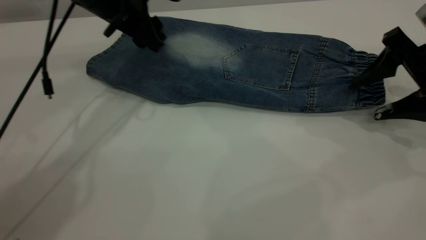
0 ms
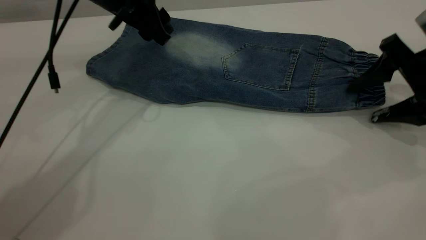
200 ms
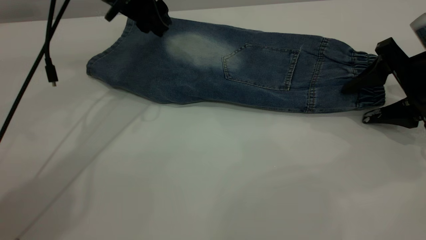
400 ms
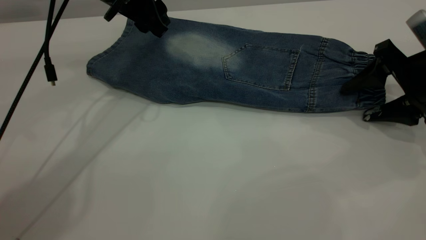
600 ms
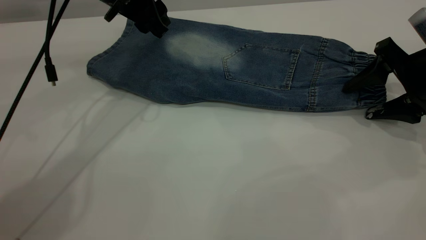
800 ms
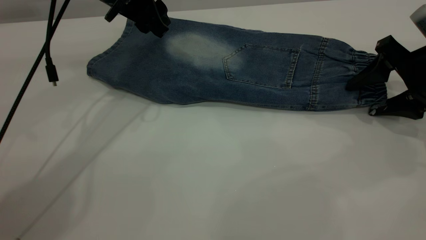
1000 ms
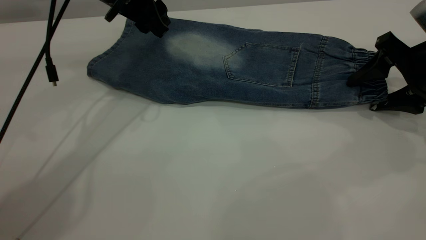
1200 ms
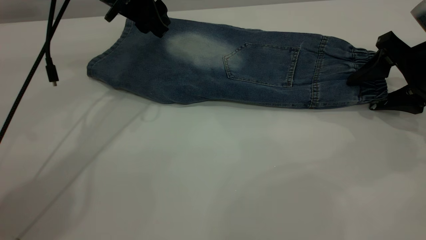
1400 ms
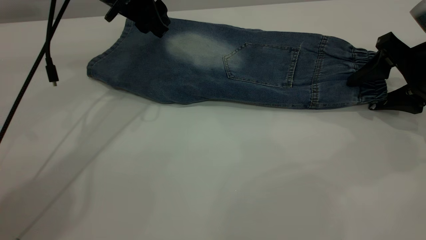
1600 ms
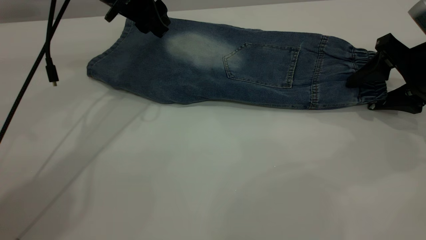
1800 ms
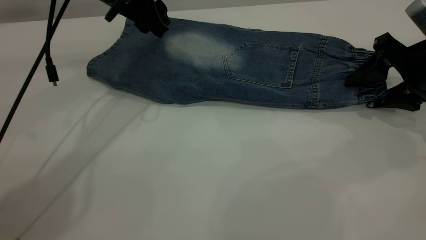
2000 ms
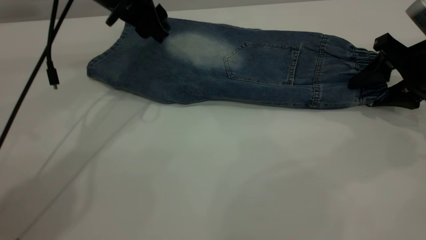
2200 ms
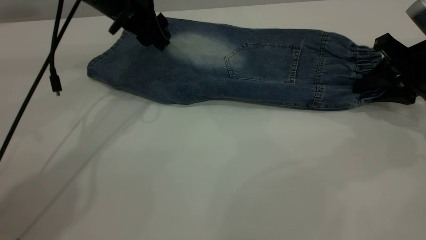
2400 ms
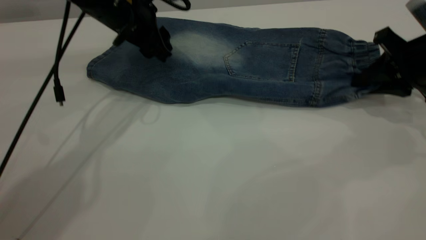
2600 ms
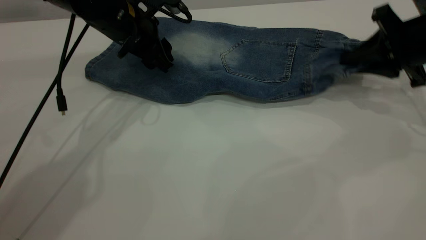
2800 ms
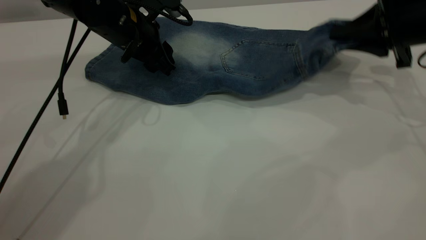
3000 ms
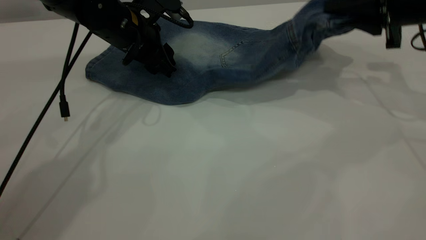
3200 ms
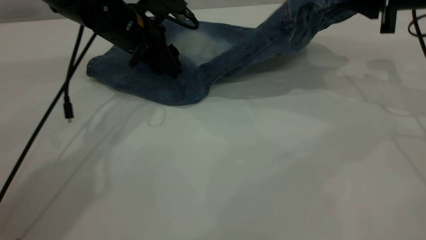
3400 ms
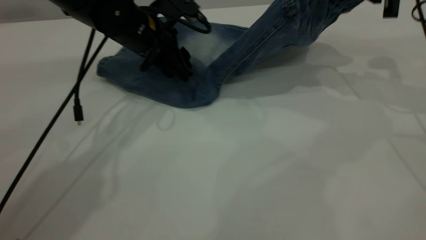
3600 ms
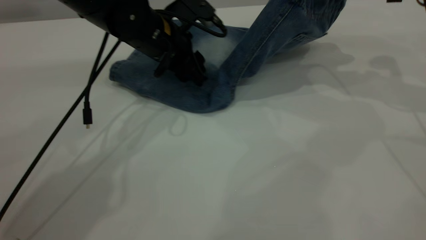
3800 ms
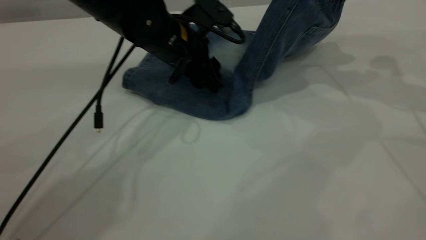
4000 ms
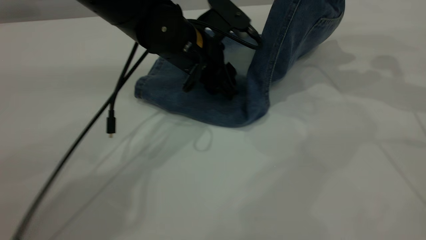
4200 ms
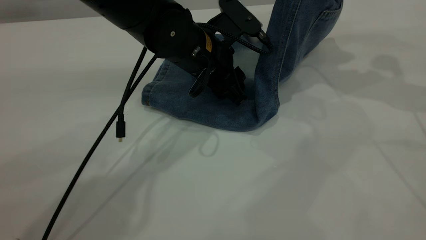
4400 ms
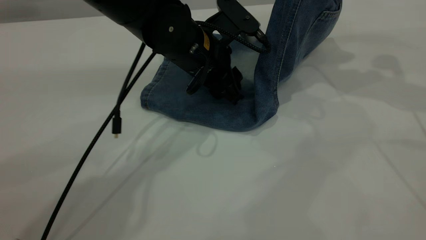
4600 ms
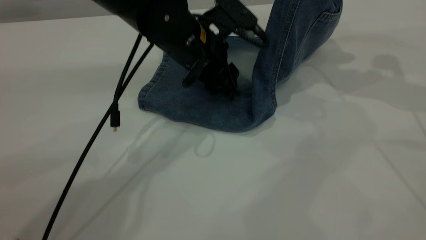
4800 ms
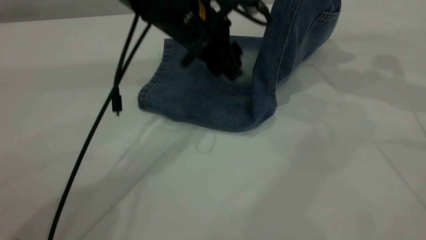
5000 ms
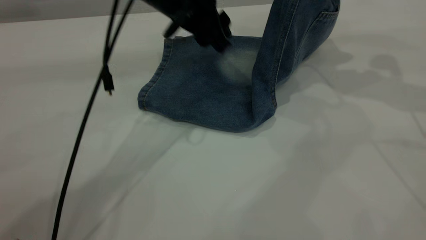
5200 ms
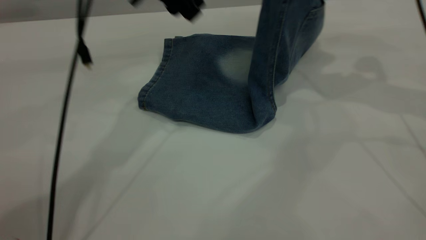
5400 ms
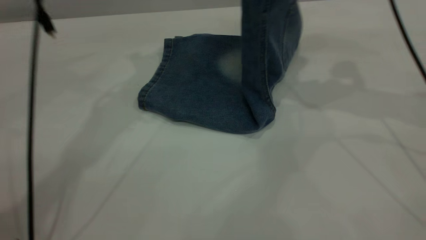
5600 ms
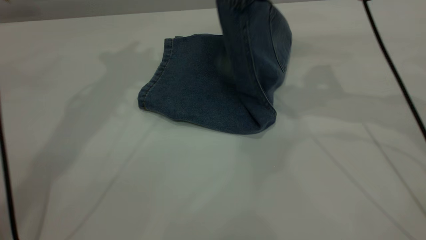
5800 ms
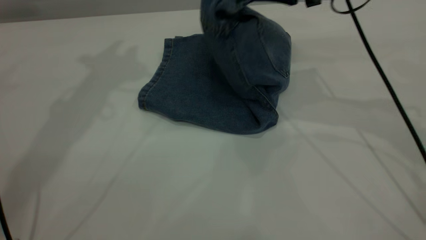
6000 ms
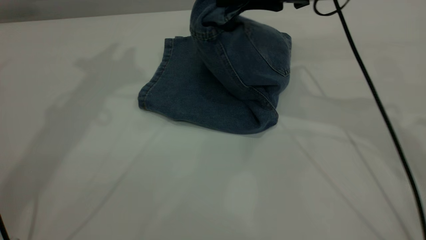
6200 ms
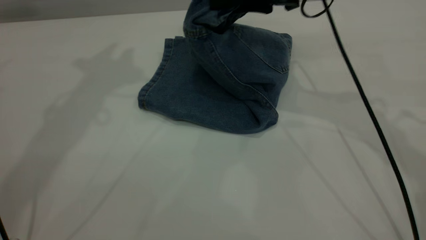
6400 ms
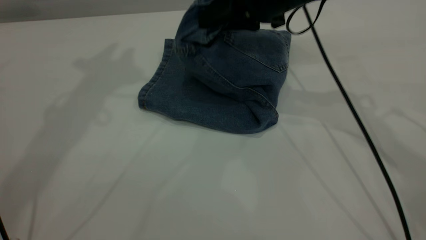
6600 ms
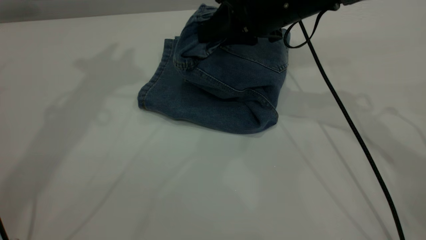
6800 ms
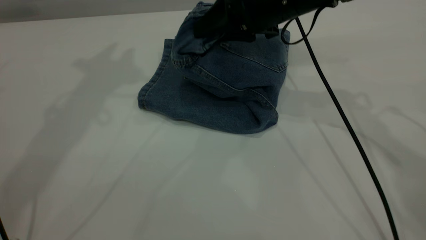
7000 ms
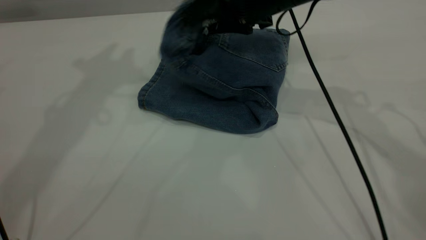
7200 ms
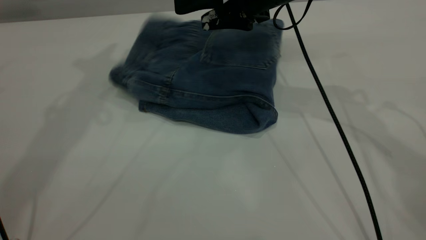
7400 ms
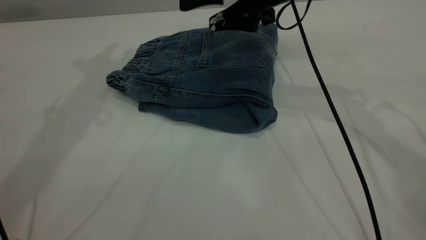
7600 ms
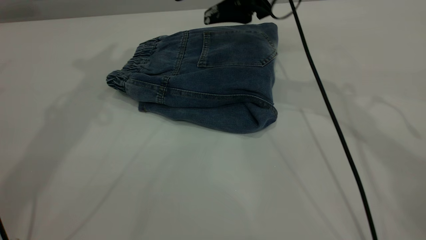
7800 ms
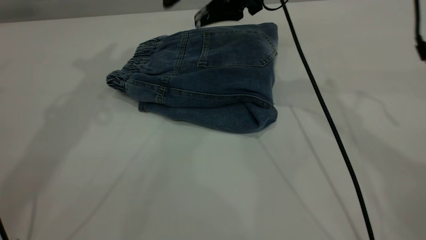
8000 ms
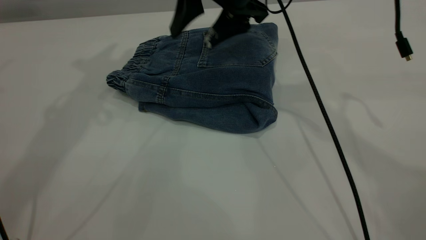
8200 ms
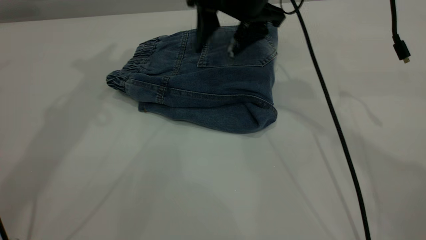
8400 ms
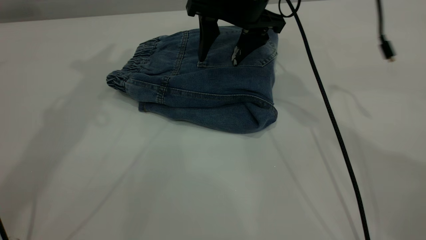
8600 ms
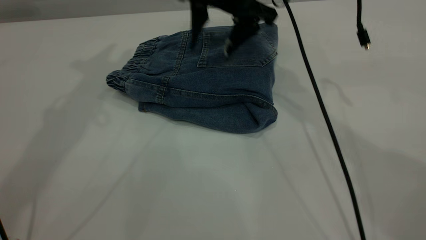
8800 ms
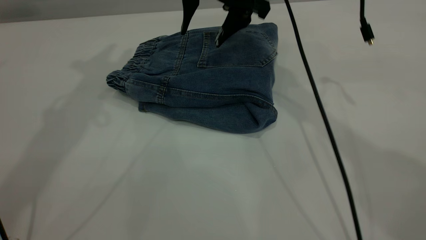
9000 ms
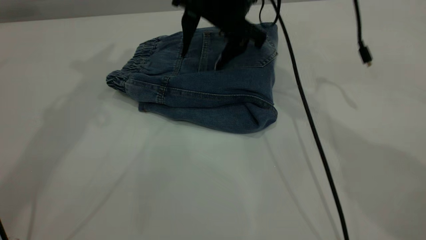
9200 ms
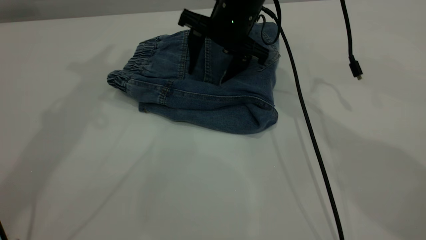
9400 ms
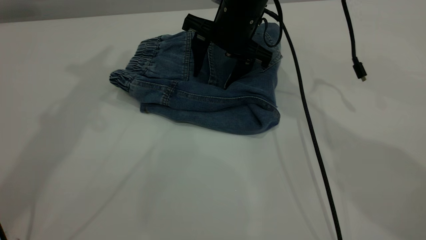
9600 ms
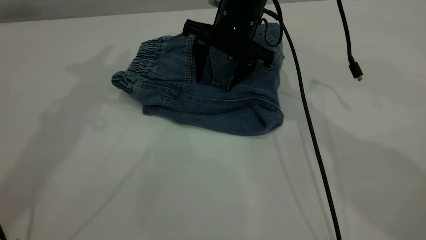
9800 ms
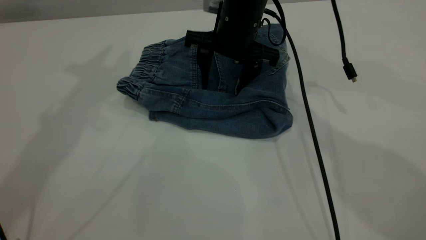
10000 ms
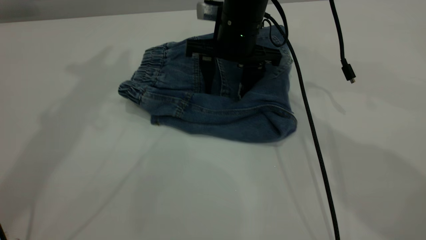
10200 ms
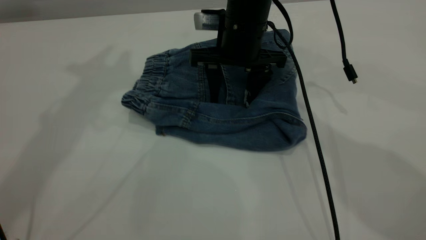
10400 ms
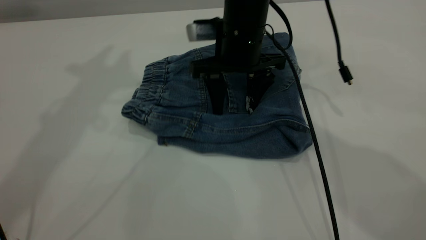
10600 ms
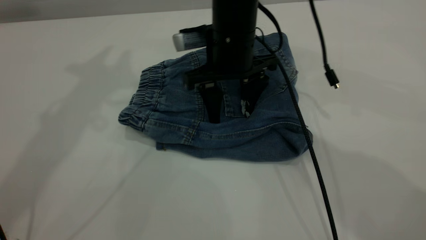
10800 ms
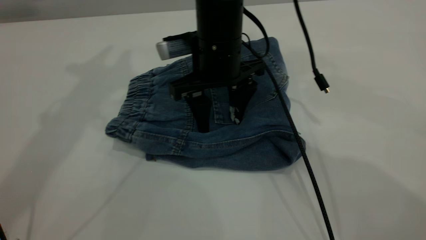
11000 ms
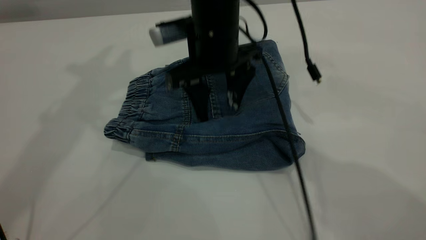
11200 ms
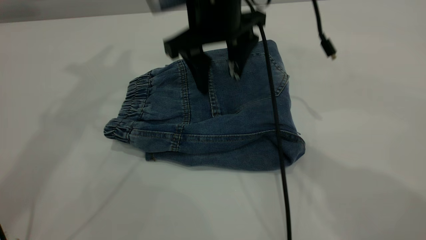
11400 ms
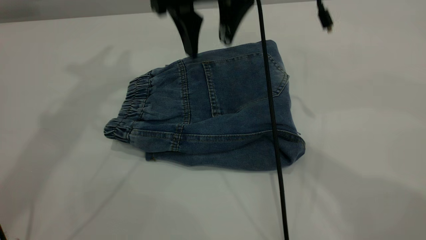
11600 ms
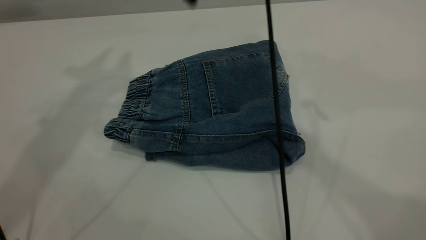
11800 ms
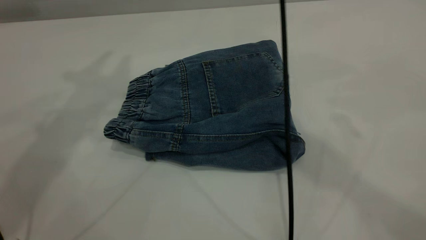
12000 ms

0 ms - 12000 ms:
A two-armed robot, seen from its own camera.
Step, 0 ms - 7800 ms: Fold your pants from right to left.
0 ms - 1600 ms: The grippers make only small movements.
1600 ms - 3000 ms: The right gripper moves some 5 cm, and closes, while the left gripper moves downward, about 5 cm.
3000 ms - 4400 ms: The right gripper goes some 10 cm upward. Meanwhile the left gripper heads to the right and backward, covering approximately 10 cm.
4400 ms - 6000 ms: The right gripper heads to the left, covering roughly 15 cm. The left gripper is displaced upward and to the left by about 35 cm.
6000 ms - 7600 ms: The right gripper moves to the left, roughly 5 cm, and opens up.
7600 ms - 9000 ms: The right gripper is displaced to the left by roughly 5 cm.
9000 ms - 10400 ms: The right gripper shifts some 5 cm downward.
10400 ms - 12000 ms: The right gripper goes about 30 cm upward.

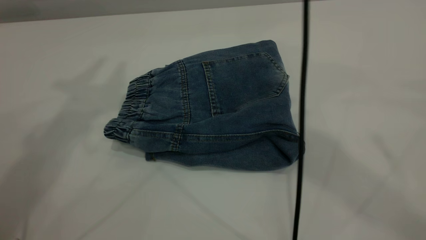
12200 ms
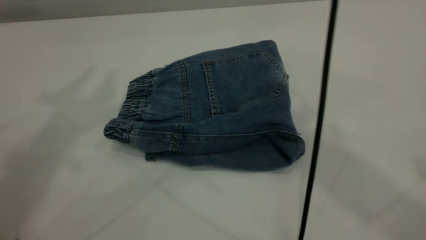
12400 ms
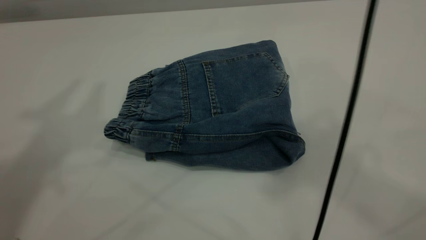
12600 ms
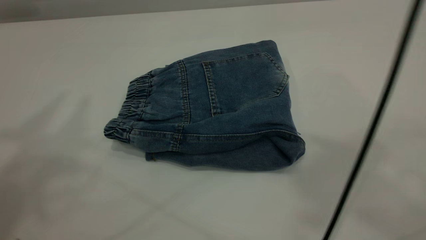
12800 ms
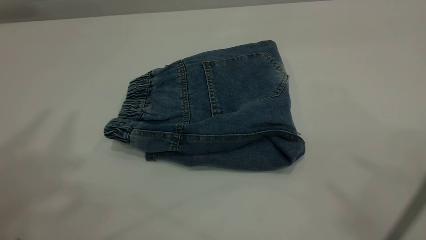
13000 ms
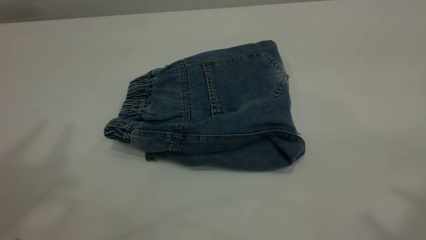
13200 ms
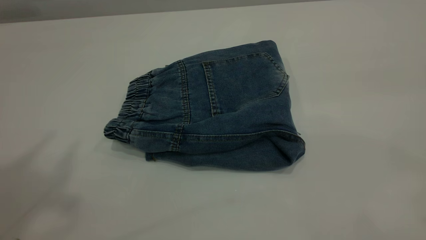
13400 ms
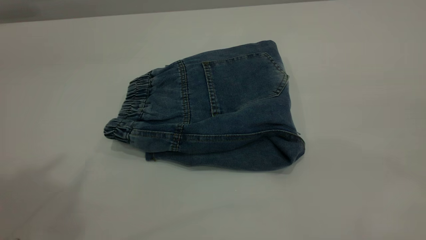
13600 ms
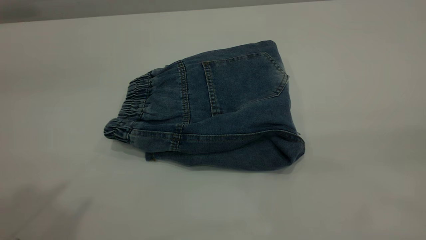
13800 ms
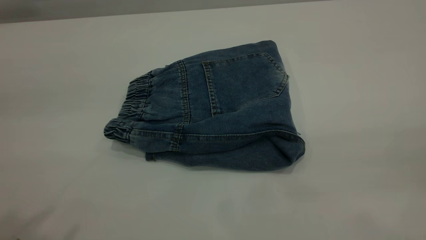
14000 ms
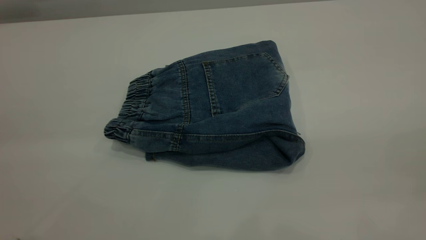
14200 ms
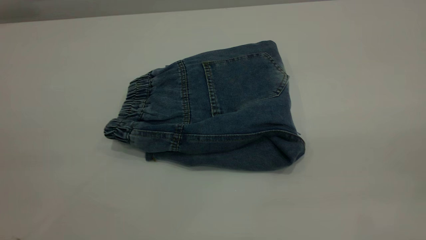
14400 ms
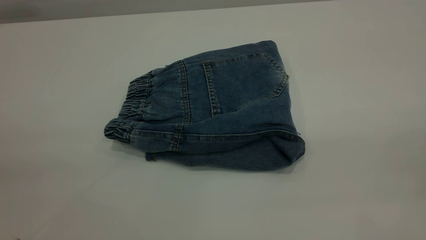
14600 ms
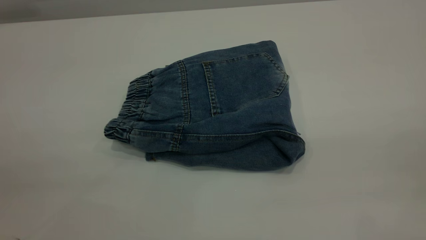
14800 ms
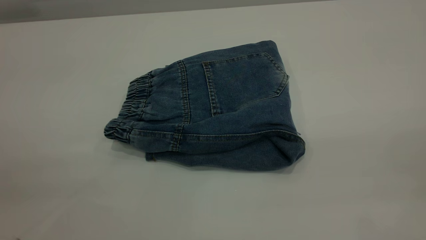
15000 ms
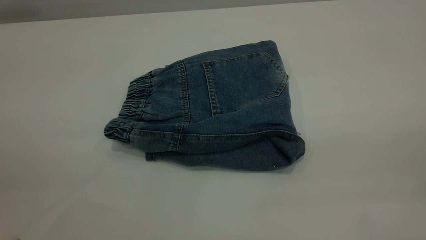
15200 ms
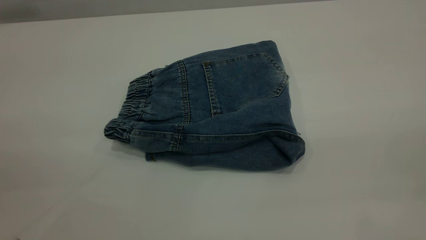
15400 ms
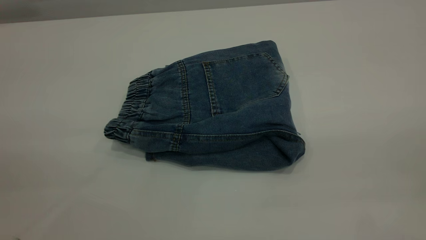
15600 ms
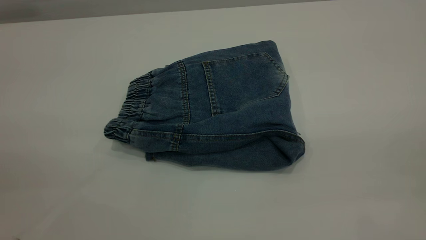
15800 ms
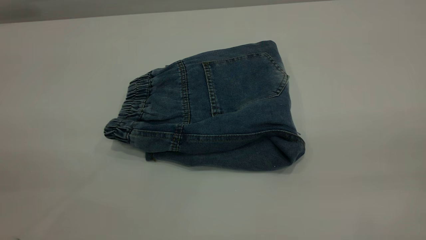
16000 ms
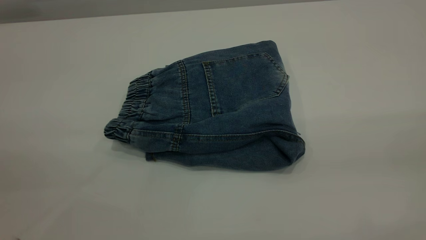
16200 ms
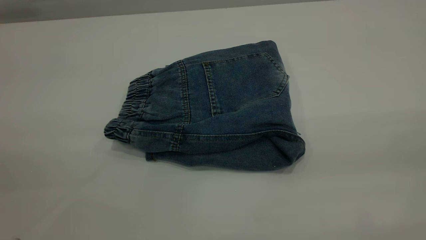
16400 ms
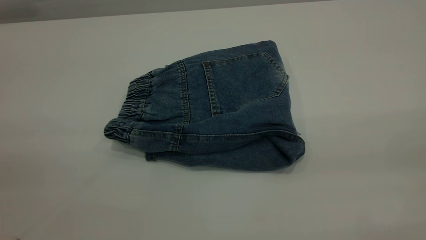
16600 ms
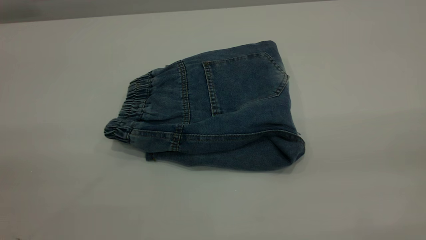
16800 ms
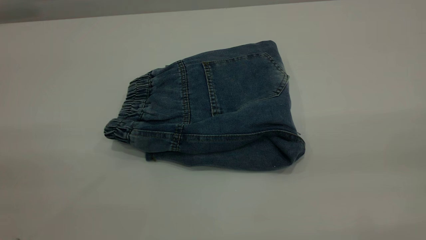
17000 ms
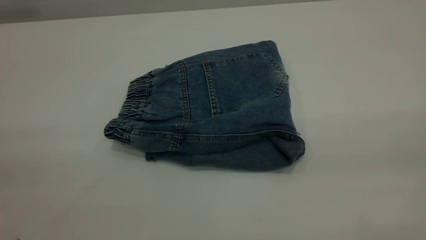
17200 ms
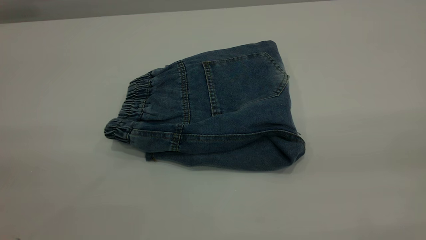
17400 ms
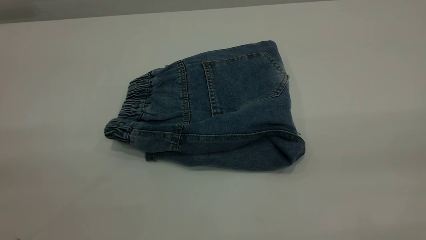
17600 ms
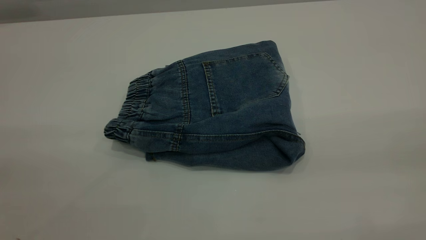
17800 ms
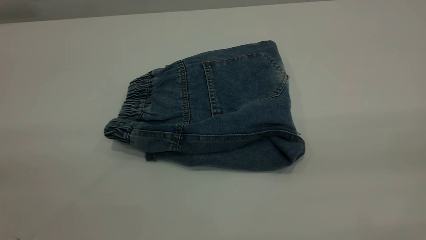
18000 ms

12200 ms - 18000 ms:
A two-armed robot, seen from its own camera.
12200 ms - 13600 ms: The right gripper shifts roughly 35 cm backward and to the right.
